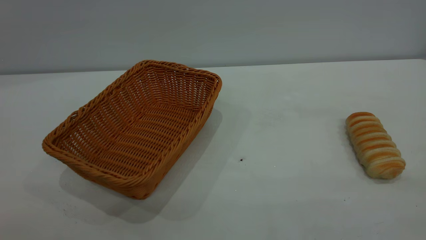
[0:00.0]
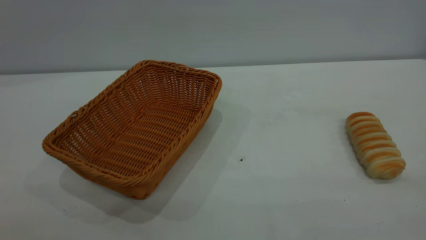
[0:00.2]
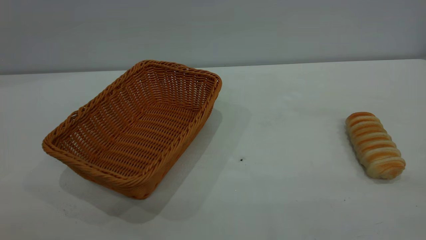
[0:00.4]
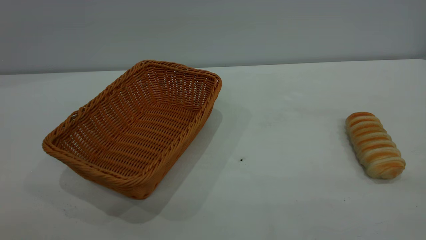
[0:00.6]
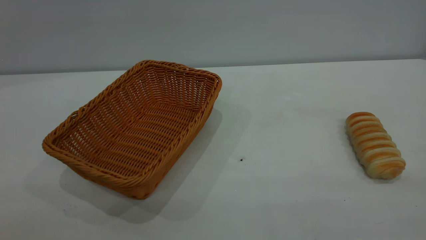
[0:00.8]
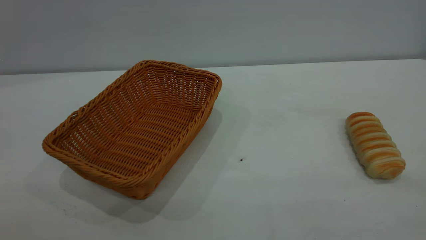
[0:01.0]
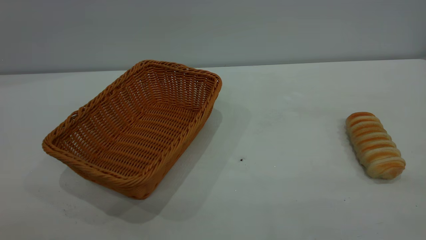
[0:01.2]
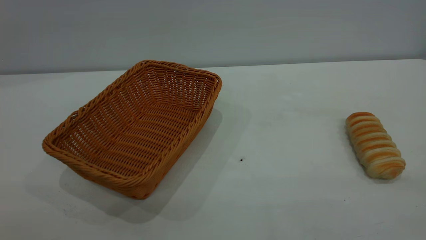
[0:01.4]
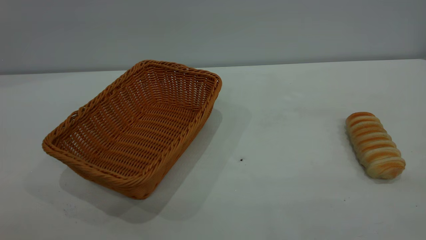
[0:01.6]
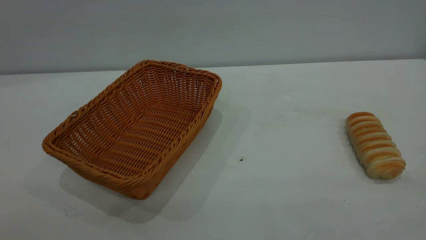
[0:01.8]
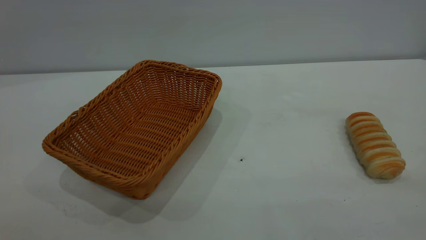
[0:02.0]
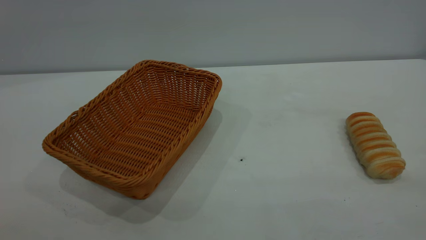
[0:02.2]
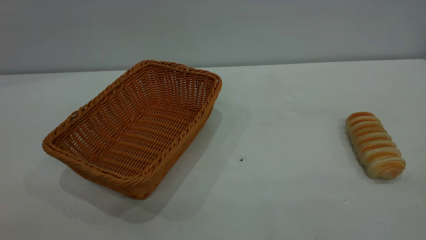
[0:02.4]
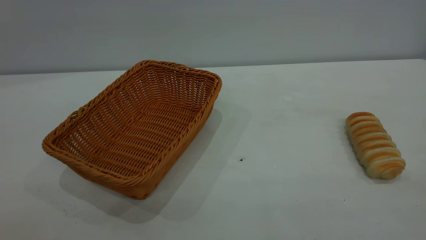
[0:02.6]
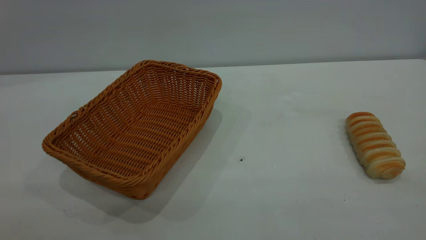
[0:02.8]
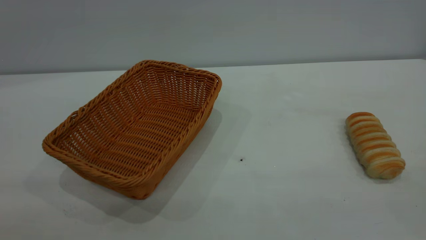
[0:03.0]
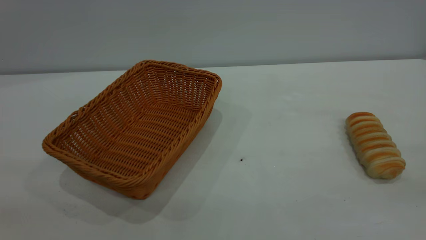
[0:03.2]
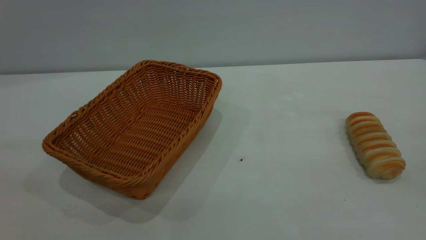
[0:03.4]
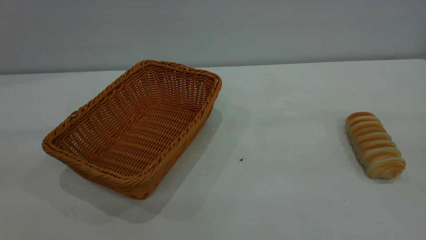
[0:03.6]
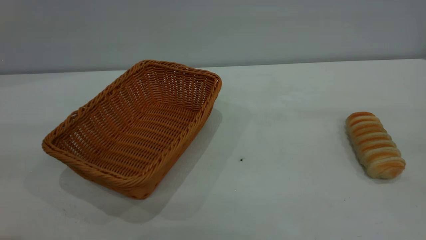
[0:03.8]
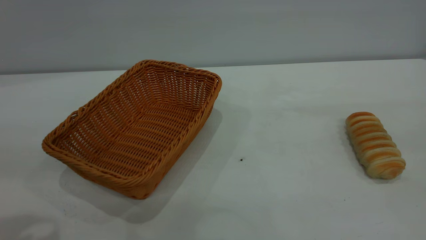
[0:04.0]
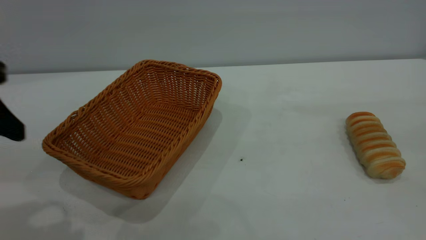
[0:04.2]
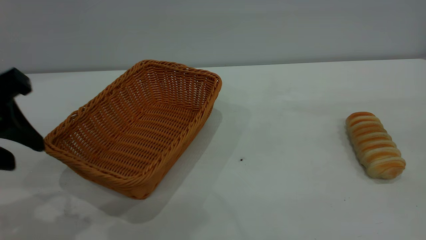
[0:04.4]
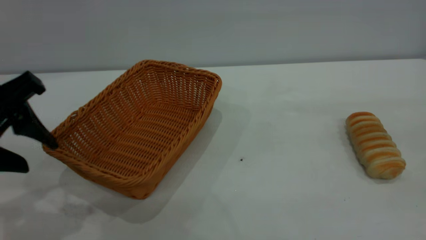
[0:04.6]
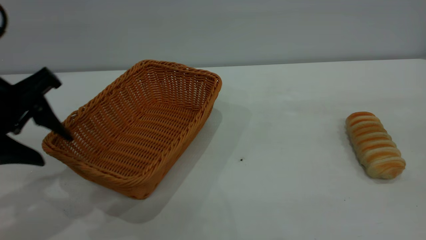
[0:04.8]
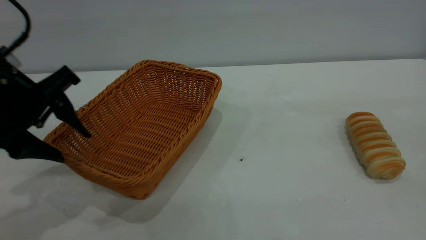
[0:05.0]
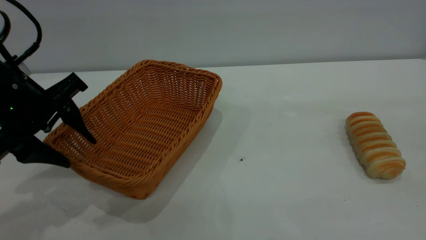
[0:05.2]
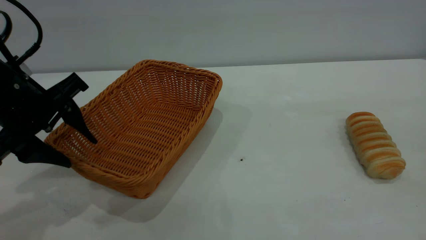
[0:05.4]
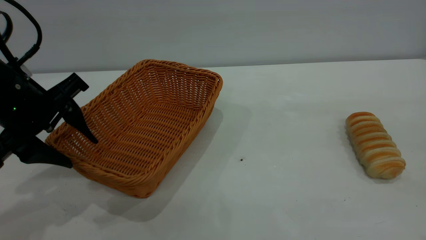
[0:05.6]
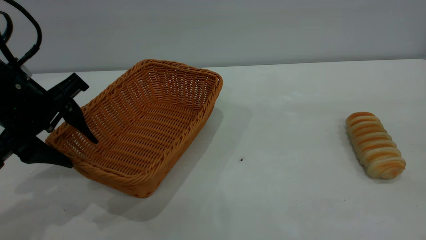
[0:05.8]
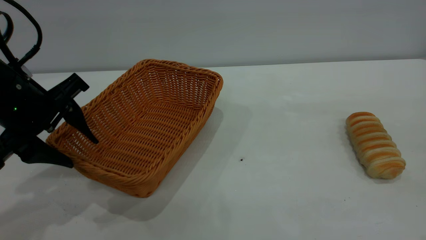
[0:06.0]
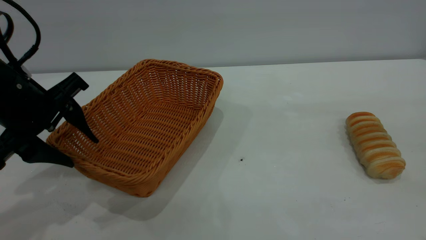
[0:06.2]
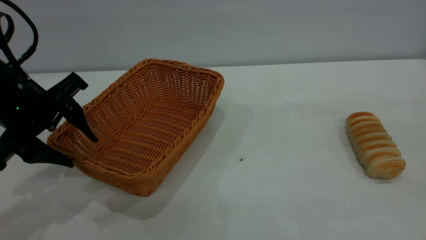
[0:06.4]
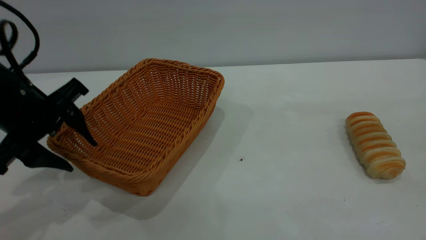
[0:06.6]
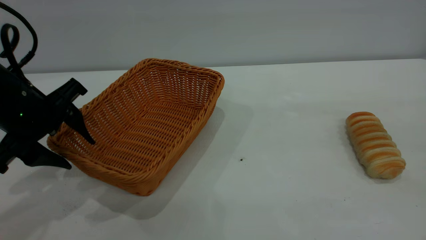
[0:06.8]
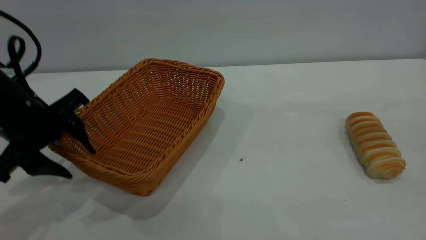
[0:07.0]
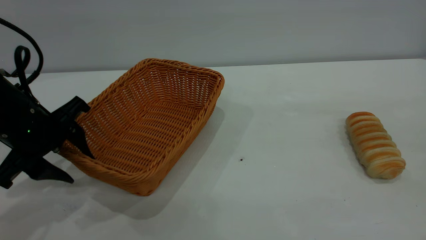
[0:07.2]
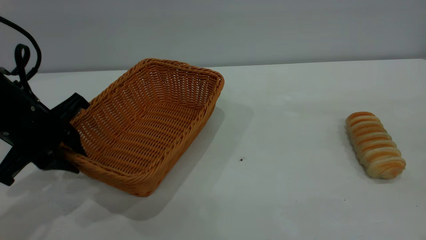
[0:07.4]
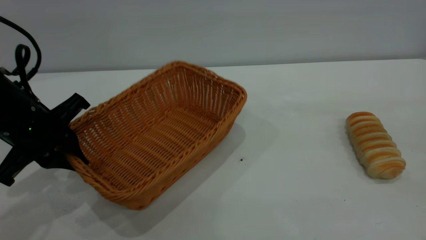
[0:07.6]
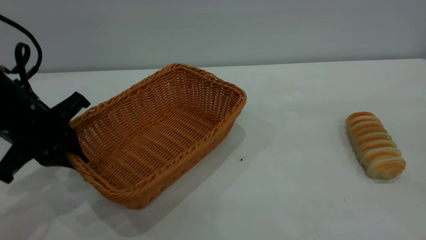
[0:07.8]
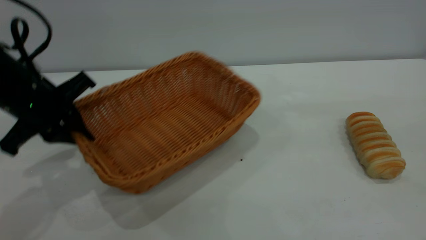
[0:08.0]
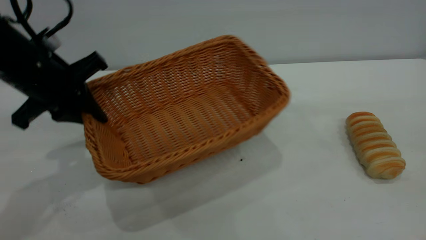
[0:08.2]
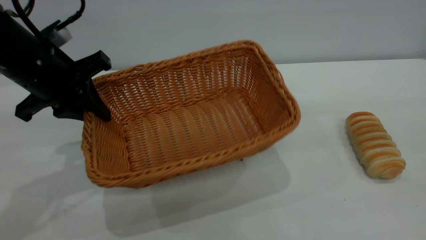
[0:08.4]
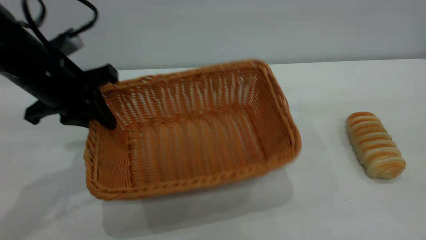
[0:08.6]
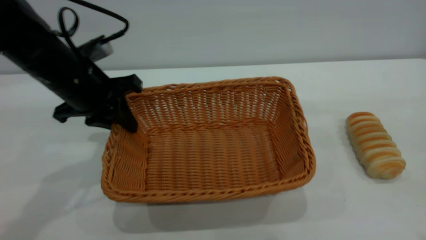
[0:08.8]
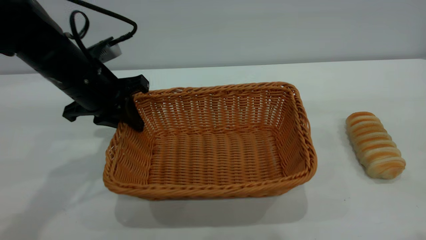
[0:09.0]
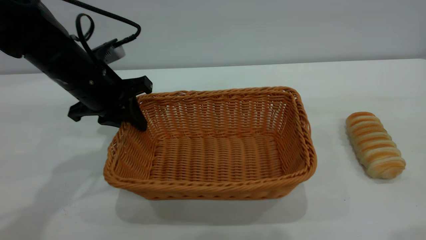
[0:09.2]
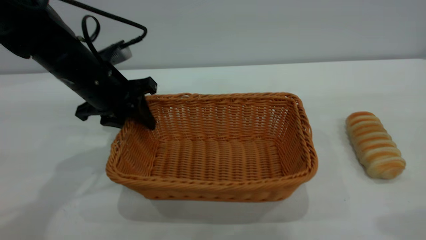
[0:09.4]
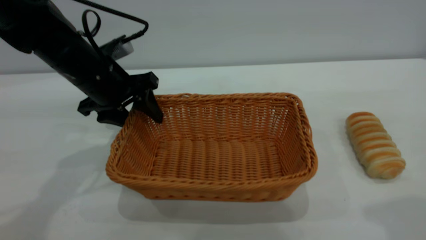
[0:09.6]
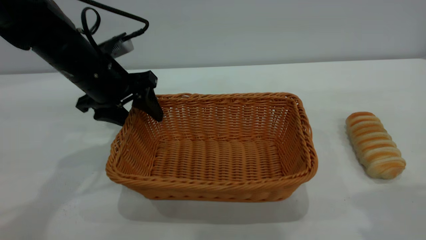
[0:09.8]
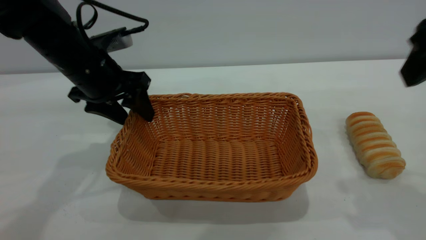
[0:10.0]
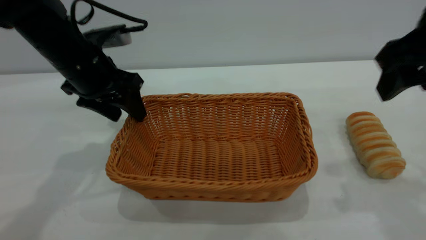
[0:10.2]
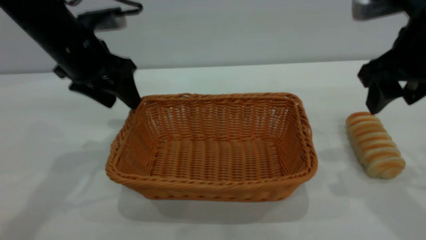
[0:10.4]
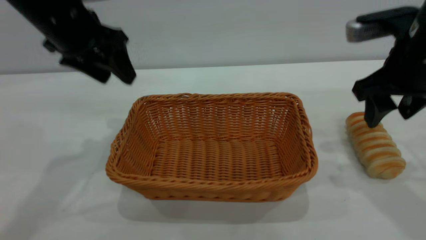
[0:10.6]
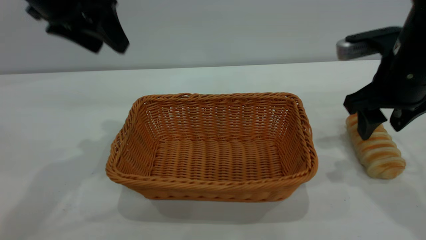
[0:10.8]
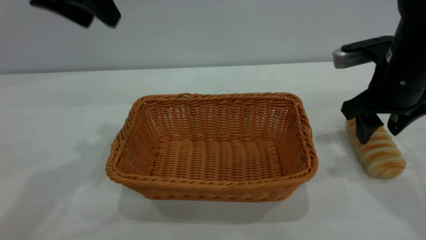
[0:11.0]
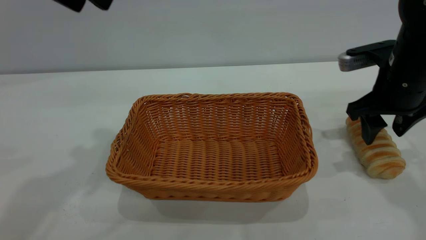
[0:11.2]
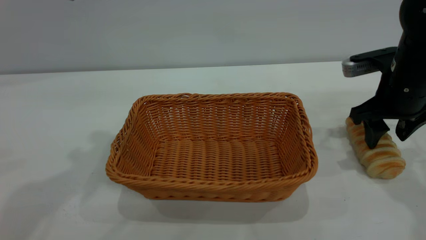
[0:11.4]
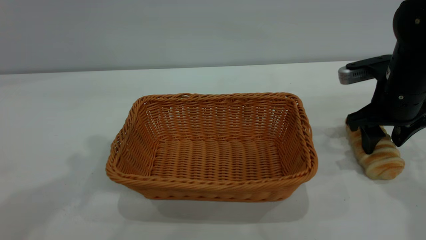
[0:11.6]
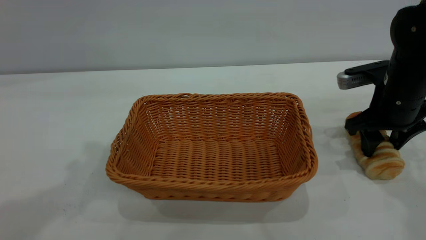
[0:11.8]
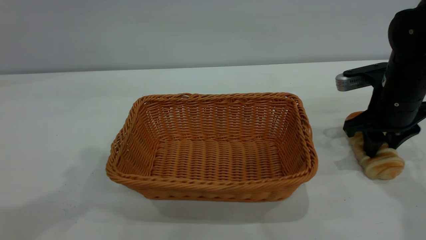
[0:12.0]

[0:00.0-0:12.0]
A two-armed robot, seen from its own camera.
Task of the whole recording: One hand grasps the yellow basket and places it in the middle of the table, while the other hand picks up the long bread and puts it into the yellow basket.
Step, 0:00.0 to 0:10.4: Move the basket to the center of view.
0:00.0 to 0:01.6: Both grippers stay put.
0:03.0 to 0:04.4: The left gripper travels forward and downward by approximately 25 cm.
0:04.4 to 0:06.0: The left gripper heads forward and downward, covering some 10 cm.
0:06.0 to 0:07.6: The left gripper closes.
0:07.6 to 0:09.0: The left gripper travels forward and to the right by about 10 cm.
0:09.0 to 0:10.4: The right gripper heads forward and downward, covering roughly 20 cm, and opens up; the left gripper heads upward, covering some 5 cm, and opens.
0:10.4 to 0:12.0: The right gripper heads downward and forward, covering approximately 15 cm, and closes up, while the left gripper goes approximately 25 cm upward and backward.

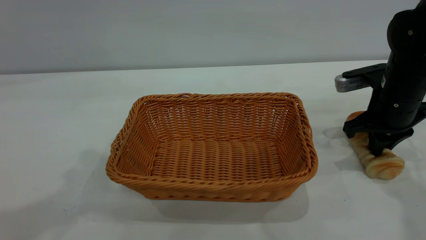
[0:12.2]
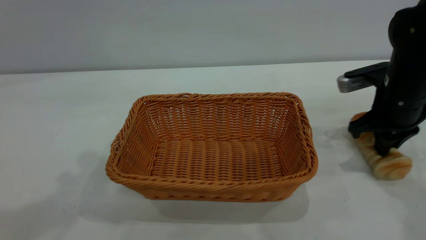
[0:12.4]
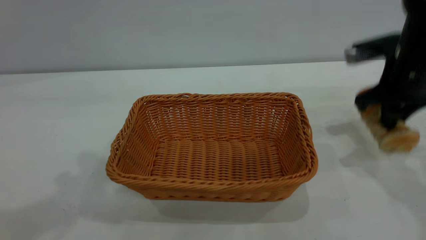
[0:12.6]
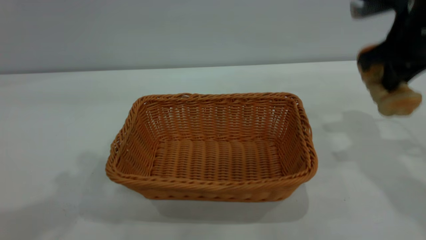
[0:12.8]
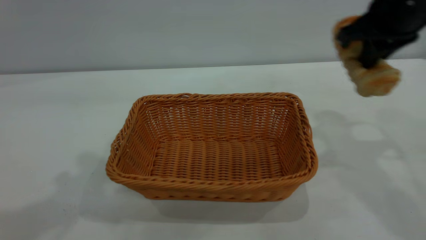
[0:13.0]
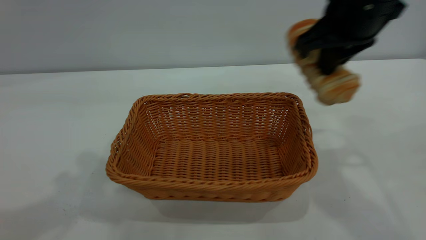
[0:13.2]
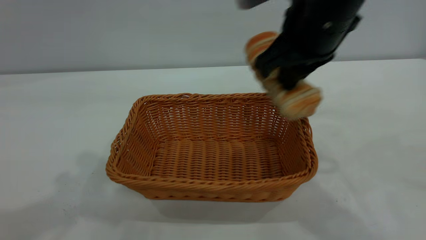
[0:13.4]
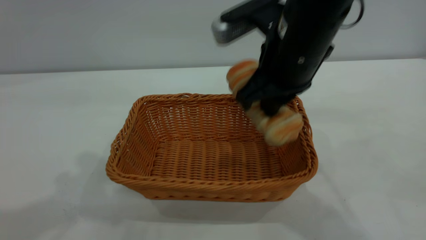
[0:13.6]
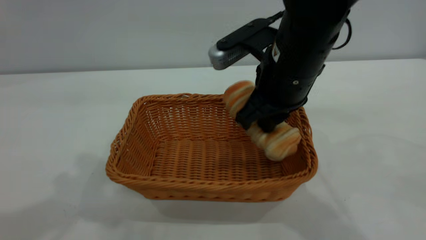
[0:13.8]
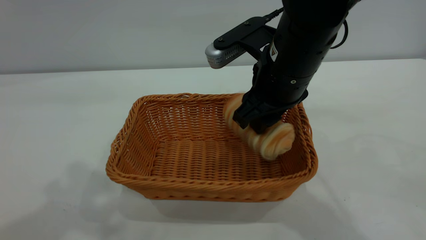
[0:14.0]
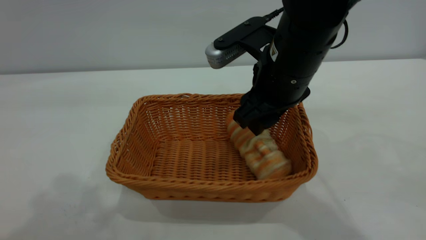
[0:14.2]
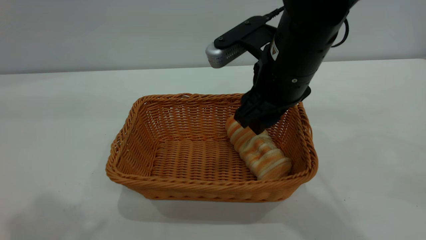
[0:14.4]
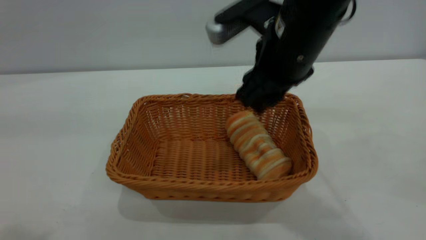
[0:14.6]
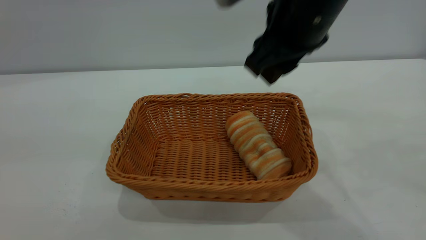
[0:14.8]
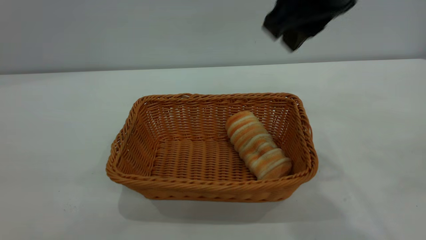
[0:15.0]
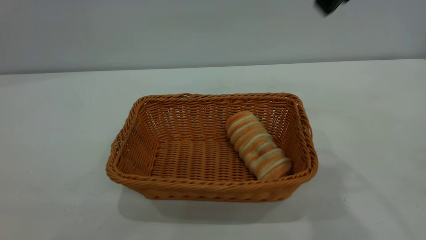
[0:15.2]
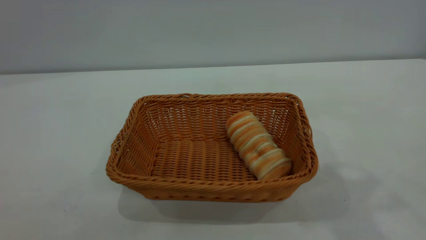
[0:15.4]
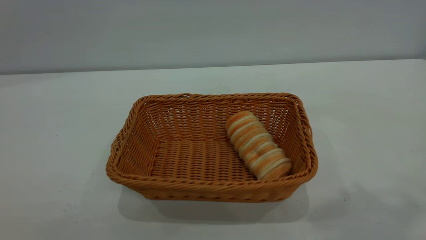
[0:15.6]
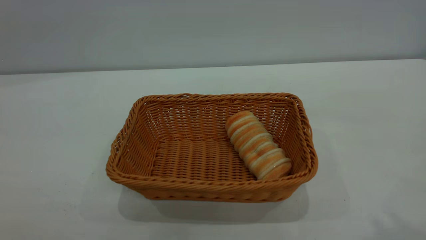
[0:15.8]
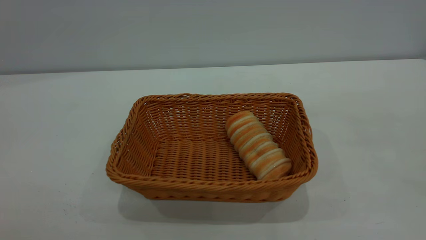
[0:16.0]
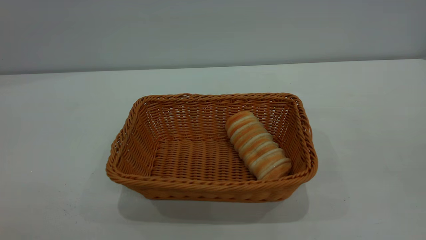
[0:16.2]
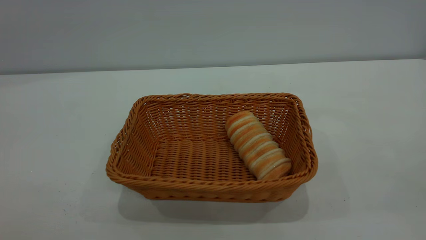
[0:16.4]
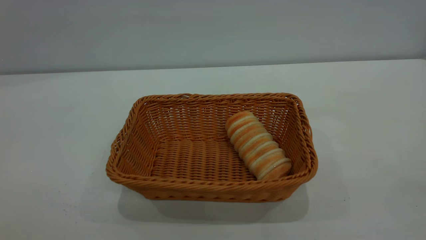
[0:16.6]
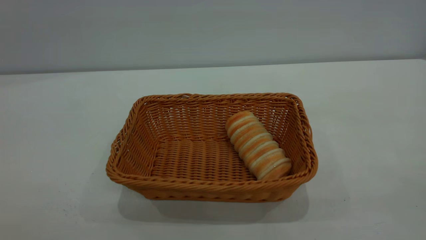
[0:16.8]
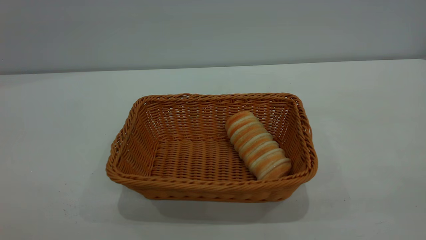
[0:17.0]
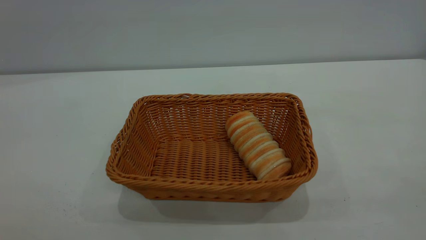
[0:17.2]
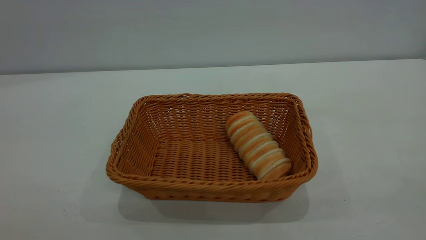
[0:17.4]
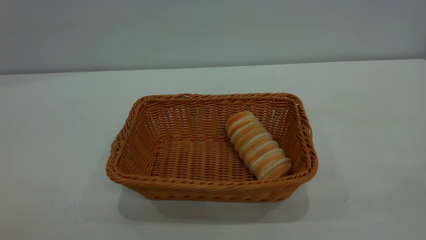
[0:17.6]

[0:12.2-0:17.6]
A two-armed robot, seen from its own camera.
Task of the whole recording: One hand grasps the yellow basket and places it in the middle of the table, while the other hand picks up the long bread and puts it into the yellow basket.
Step, 0:12.8 to 0:14.6: place the bread into the basket.
0:12.2 to 0:13.6: The right gripper moves to the left and upward, roughly 20 cm.
0:13.6 to 0:15.0: The left gripper travels backward by about 25 cm, while the right gripper shifts roughly 10 cm upward, and opens up.
0:15.0 to 0:16.2: The left gripper moves downward and backward, some 10 cm. Meanwhile the right gripper travels backward, to the right and upward by some 30 cm.
